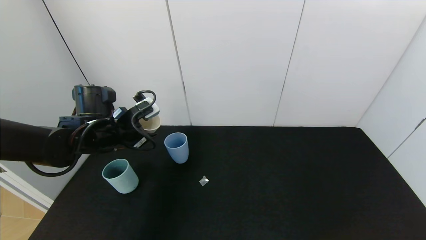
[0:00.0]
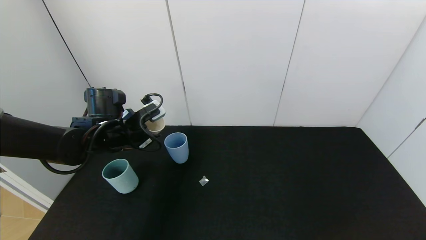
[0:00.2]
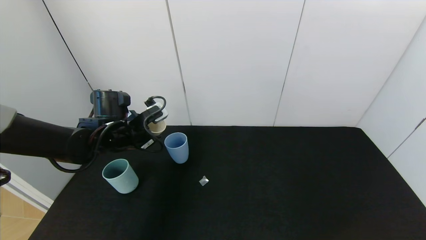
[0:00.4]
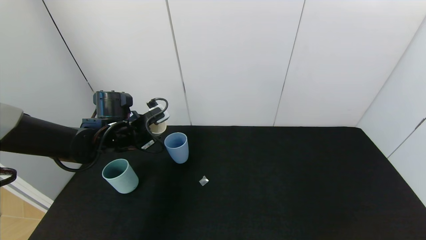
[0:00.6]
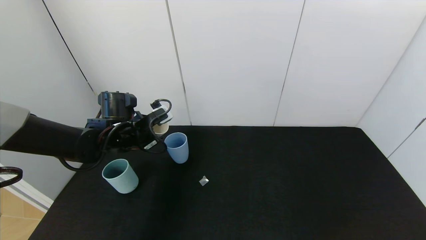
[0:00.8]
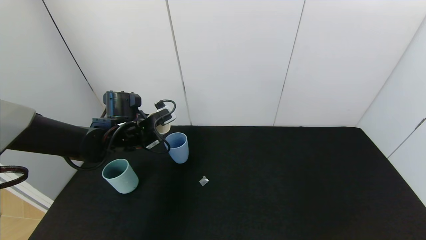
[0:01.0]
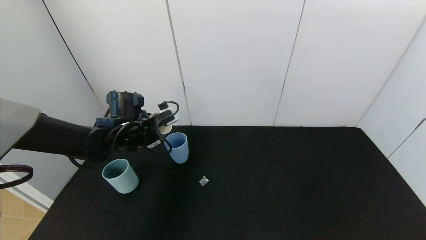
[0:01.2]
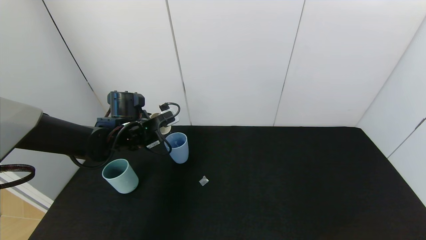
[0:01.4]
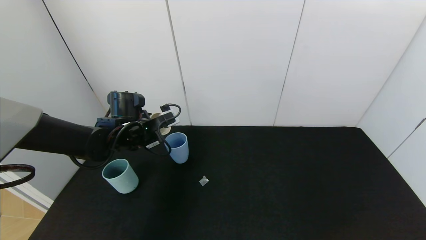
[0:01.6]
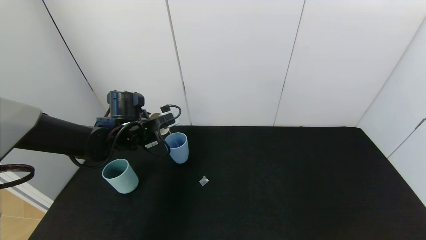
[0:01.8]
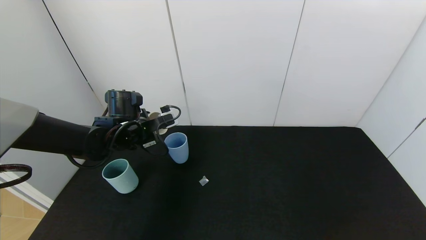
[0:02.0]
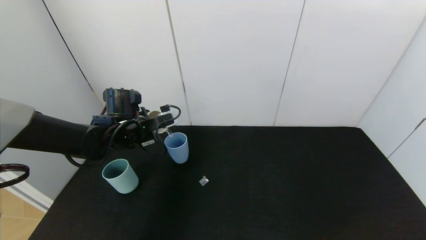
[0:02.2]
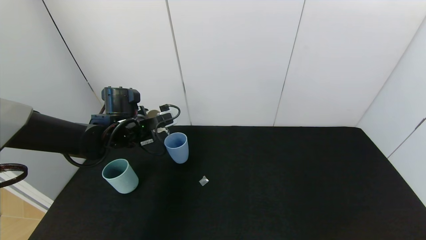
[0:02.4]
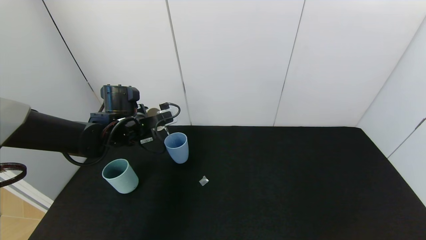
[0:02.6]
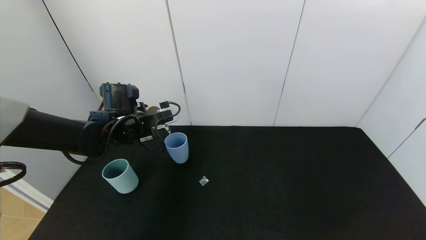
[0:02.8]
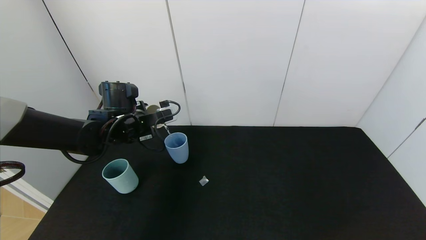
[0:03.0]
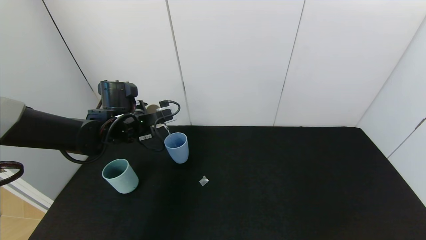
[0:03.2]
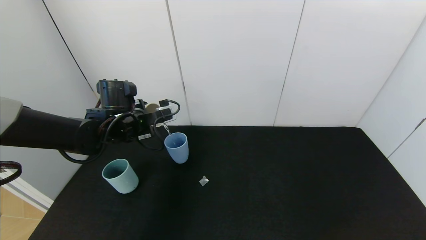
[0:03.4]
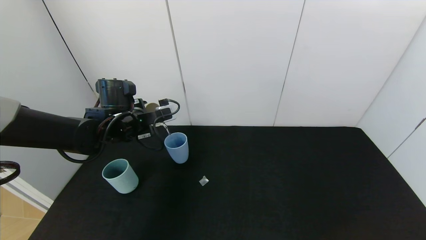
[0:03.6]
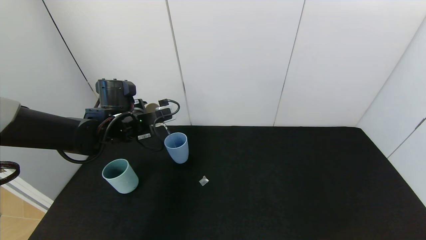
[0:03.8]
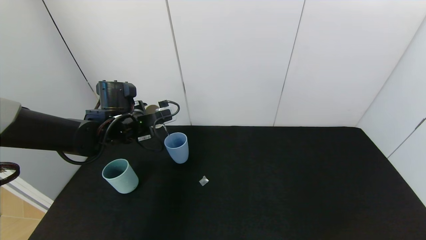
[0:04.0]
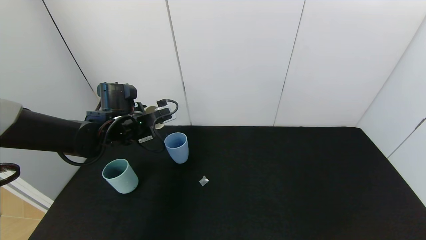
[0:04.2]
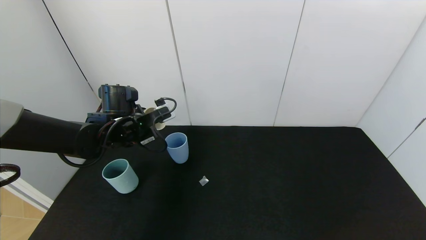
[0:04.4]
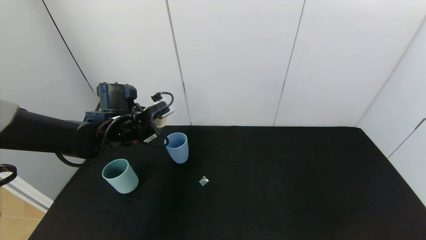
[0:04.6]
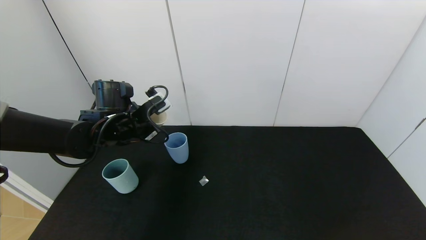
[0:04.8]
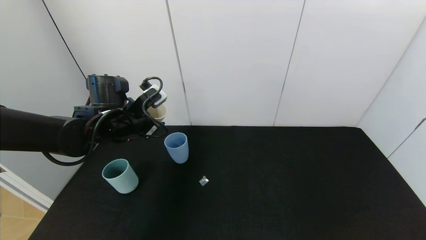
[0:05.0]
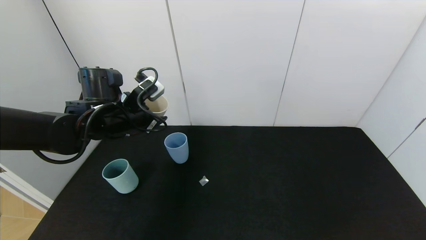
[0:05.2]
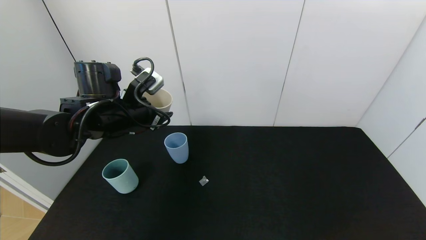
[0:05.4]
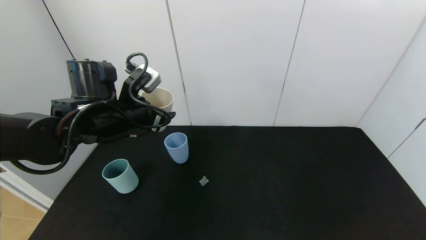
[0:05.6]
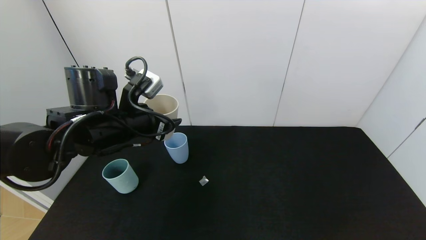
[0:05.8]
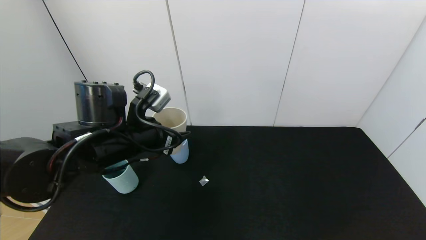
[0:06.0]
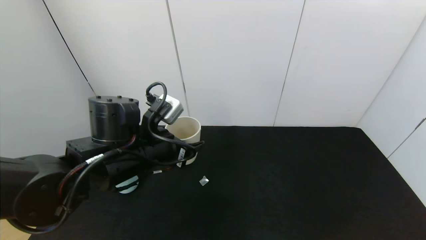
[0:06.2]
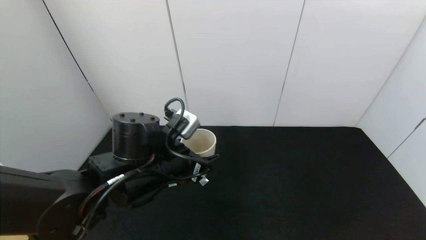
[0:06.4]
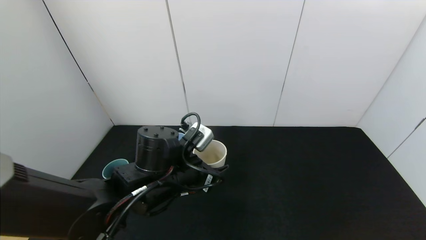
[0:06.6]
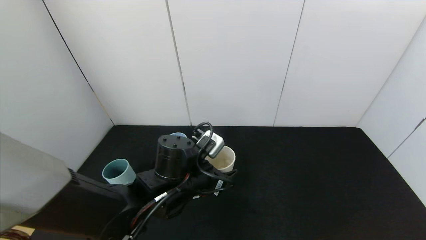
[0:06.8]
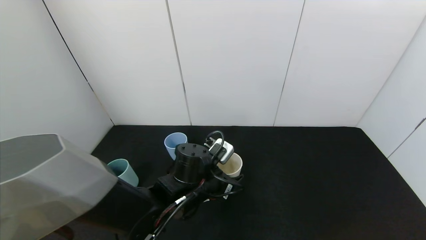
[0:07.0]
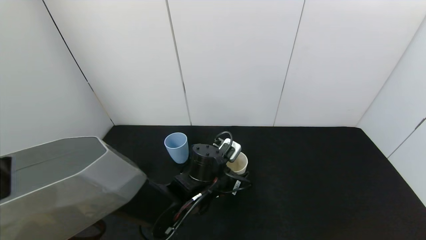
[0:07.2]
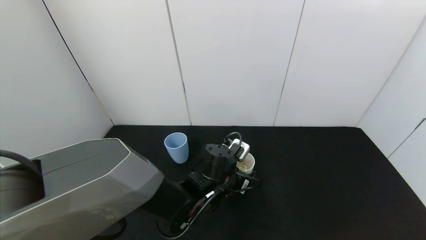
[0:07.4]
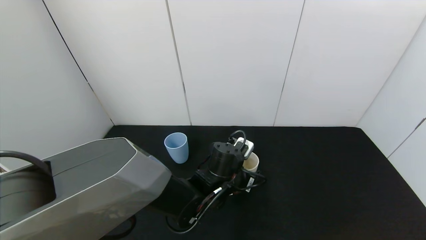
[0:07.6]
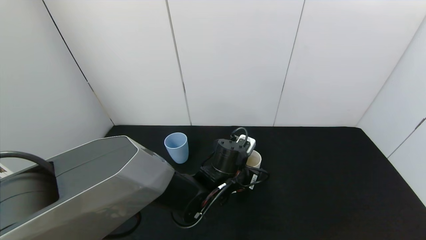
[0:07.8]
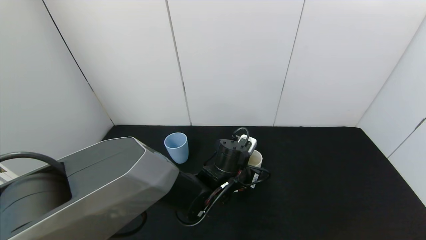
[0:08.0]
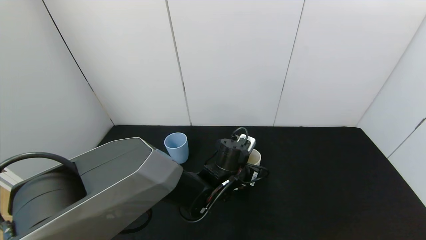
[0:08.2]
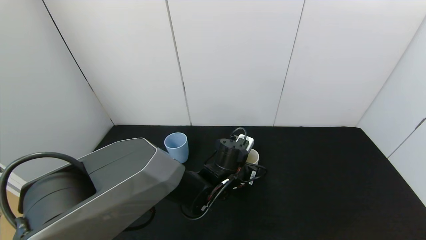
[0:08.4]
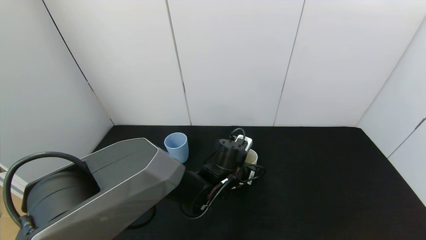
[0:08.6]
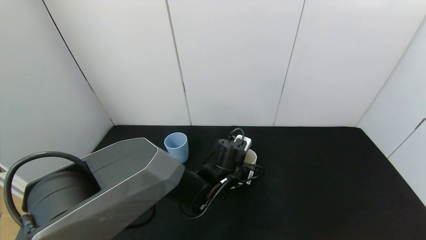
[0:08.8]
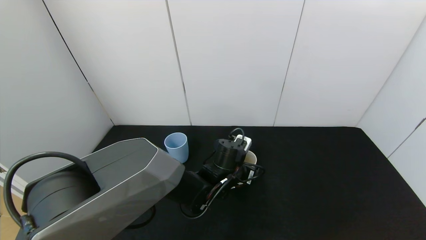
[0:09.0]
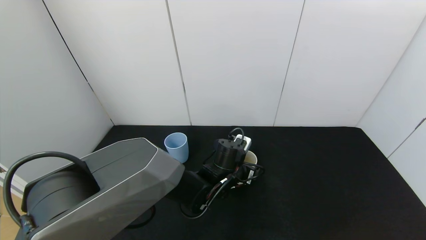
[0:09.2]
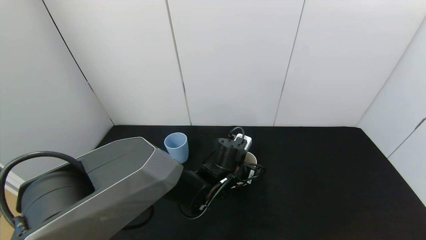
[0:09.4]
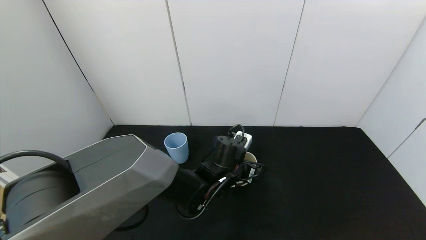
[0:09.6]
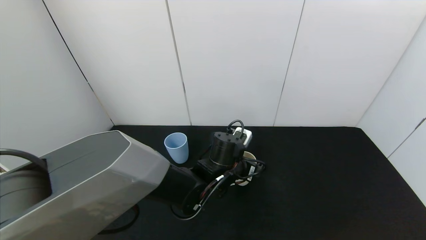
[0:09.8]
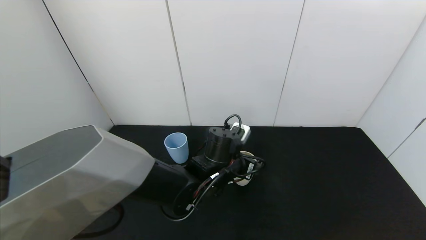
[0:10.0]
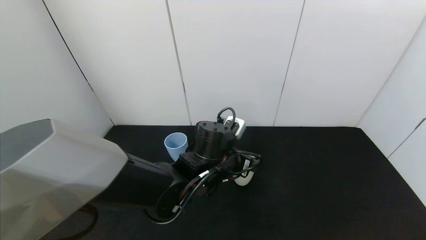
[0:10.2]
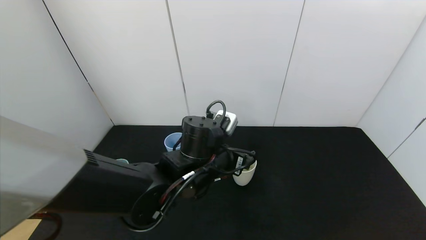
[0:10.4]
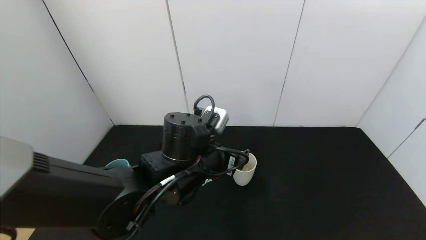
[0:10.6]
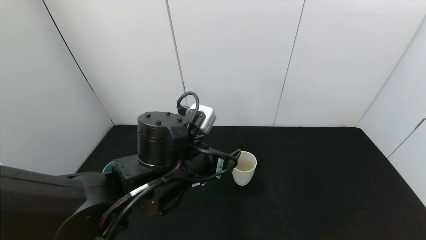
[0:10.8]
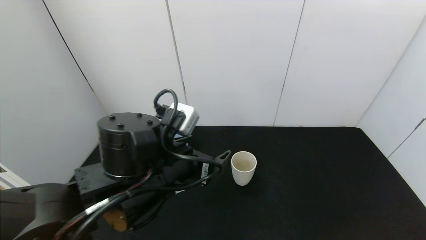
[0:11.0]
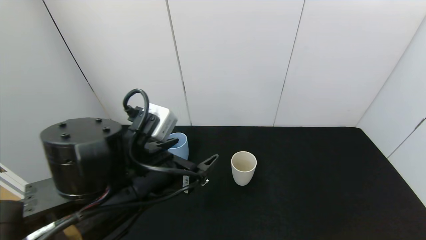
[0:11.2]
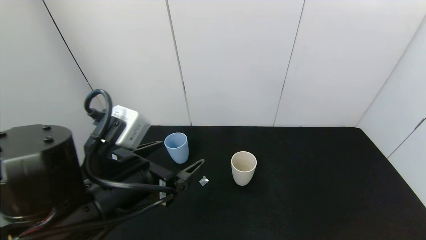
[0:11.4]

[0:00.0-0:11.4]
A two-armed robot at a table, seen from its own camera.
Task of the whole recording: use the gripper to pour the water into the other two cups on black table.
Step, 0.0 to 4.6 s: Pour water from white cup to blue cup with the left gripper.
Step, 4.8 to 10.8 s: Place the white cup with the left gripper.
0.0 to 1.4 s: The grippers make only small movements.
1.4 to 4.2 s: The grippers make only small movements.
4.2 to 5.6 s: The left gripper heads backward and upward, covering some 10 cm.
5.6 to 7.2 s: The left gripper travels to the right and downward by about 25 cm.
7.2 to 8.6 s: The left gripper changes place by roughly 5 cm.
8.6 to 10.0 s: The left gripper shifts approximately 5 cm upward, and opens up.
10.0 to 11.4 s: The left gripper is displaced backward, to the left and upward by roughly 25 cm.

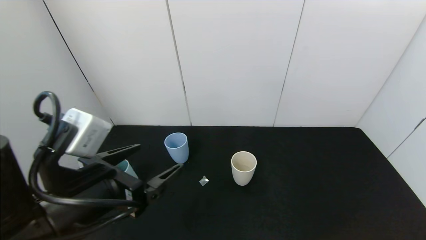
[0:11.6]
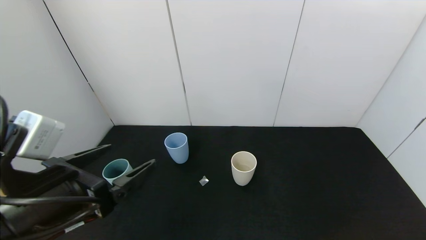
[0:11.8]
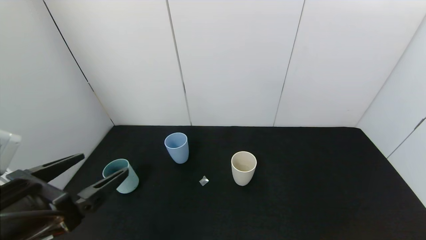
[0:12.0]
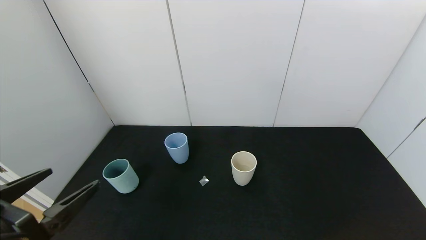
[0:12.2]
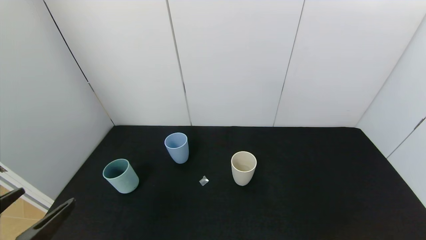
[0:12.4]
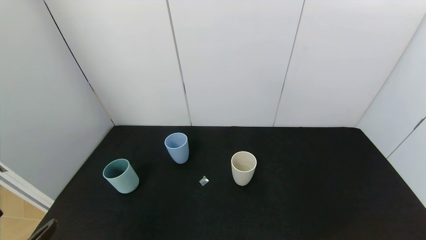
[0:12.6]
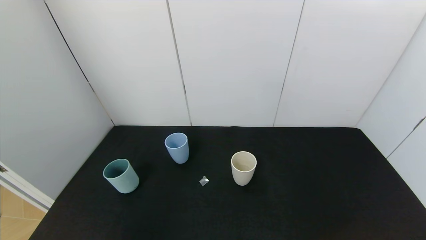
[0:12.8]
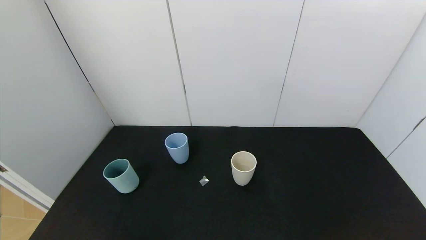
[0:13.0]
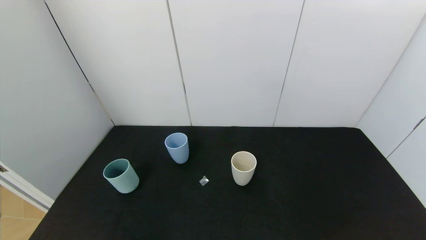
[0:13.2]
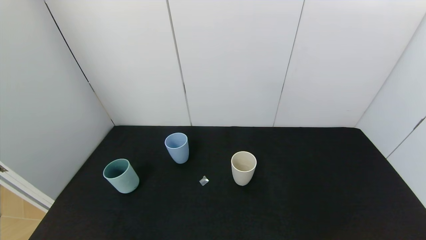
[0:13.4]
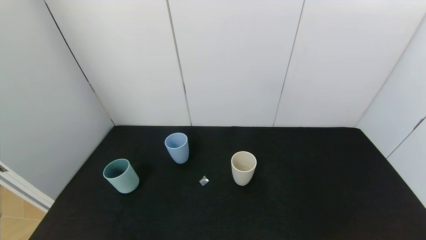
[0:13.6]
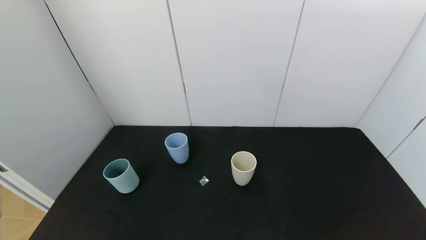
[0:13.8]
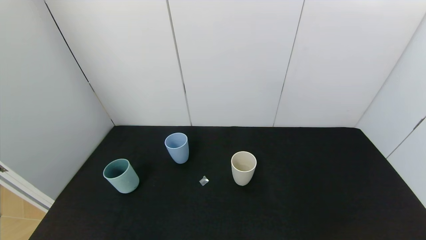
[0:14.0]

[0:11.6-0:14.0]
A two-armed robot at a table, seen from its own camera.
Task of the whole recording: use the gripper to pour the water into the other two cups on black table.
11.6 to 12.8 s: The left gripper travels backward, to the left and downward by some 20 cm.

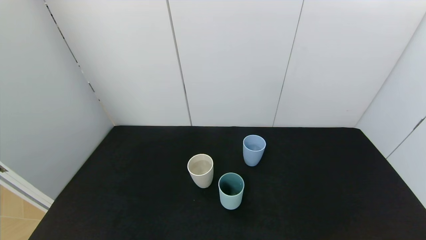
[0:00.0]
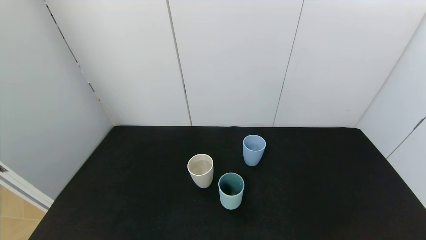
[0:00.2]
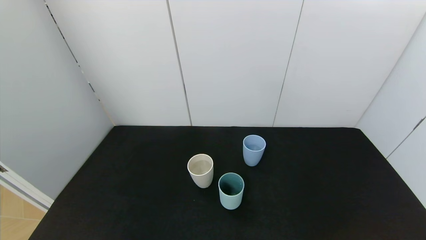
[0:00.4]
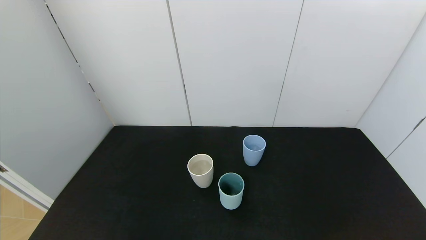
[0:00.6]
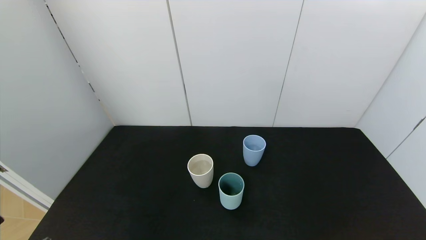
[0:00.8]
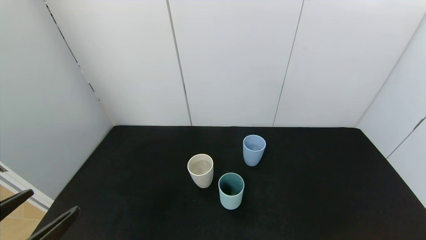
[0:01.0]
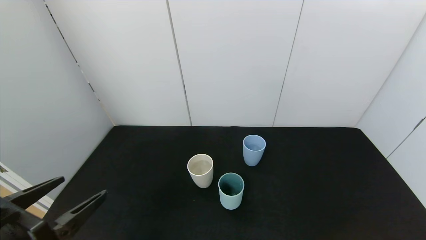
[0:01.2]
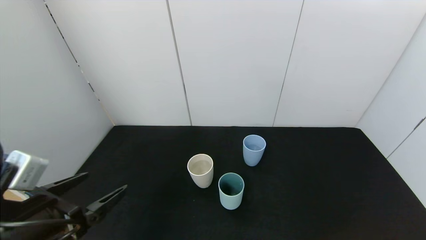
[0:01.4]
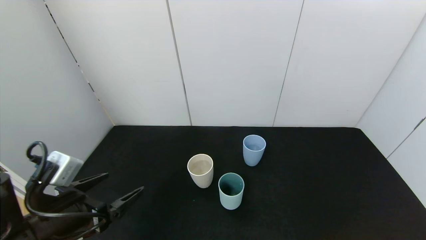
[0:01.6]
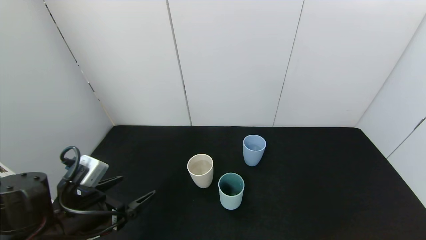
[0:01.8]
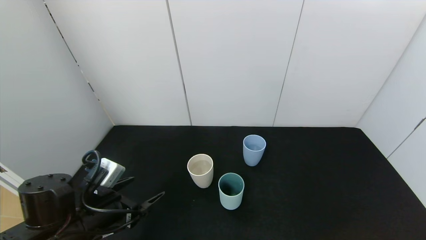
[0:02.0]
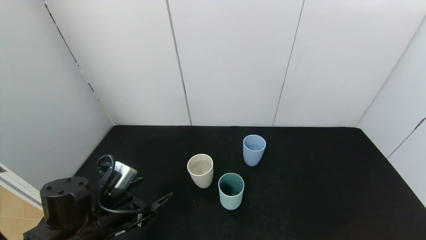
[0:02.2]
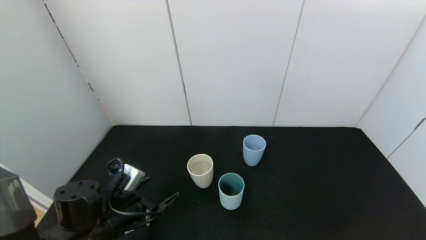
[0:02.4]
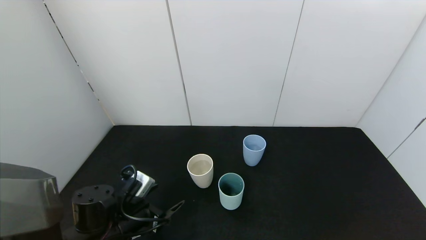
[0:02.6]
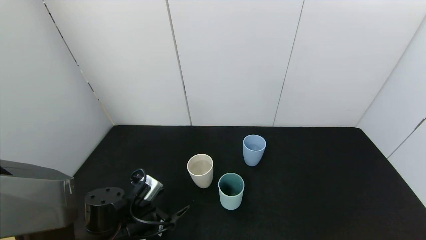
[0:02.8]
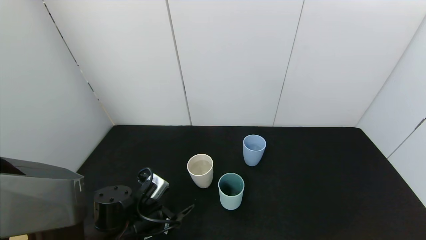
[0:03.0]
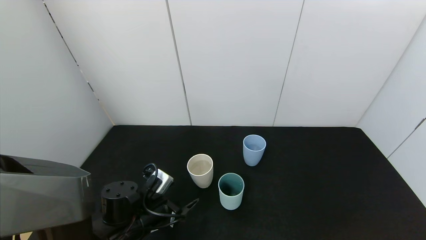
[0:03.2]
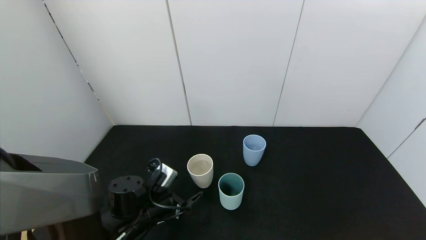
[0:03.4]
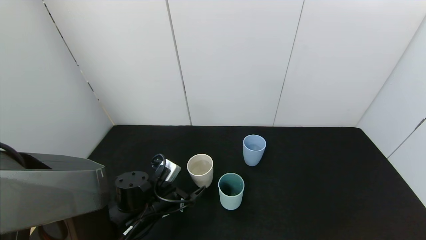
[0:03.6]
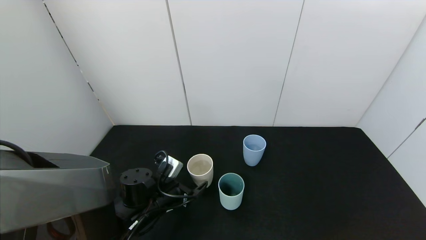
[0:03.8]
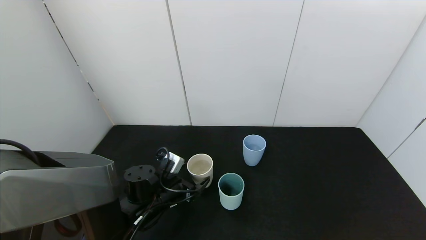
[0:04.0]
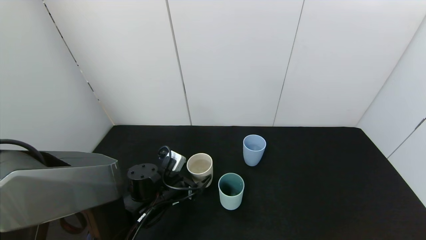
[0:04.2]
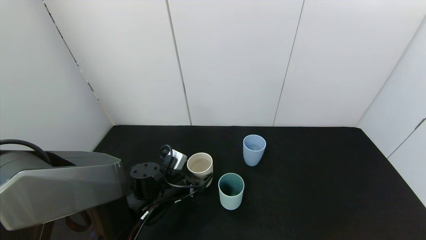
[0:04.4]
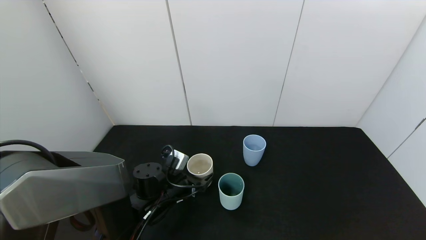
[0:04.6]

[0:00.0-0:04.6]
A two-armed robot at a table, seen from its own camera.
Task of the whole recording: use the gripper to pour the water into the other two cups on black table.
0.0 to 1.6 s: The left gripper travels forward by approximately 20 cm.
1.6 to 3.0 s: The left gripper heads downward, forward and to the right, covering approximately 15 cm.
3.0 to 4.6 s: The left gripper shifts about 10 cm forward.
